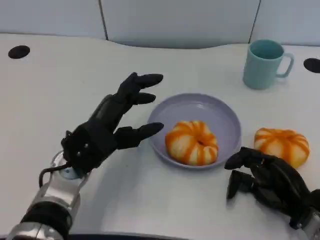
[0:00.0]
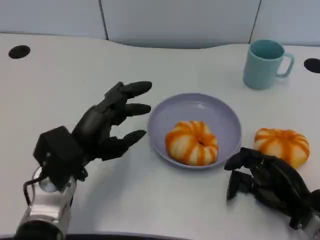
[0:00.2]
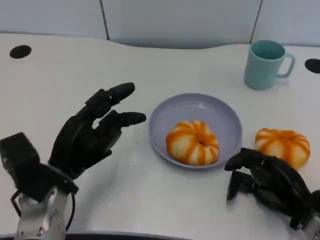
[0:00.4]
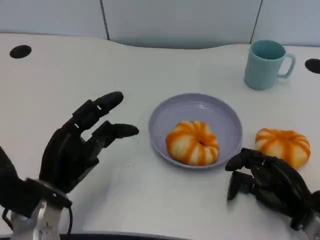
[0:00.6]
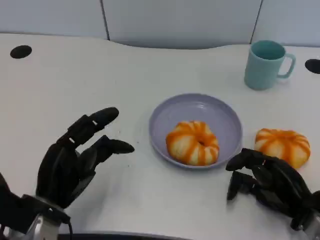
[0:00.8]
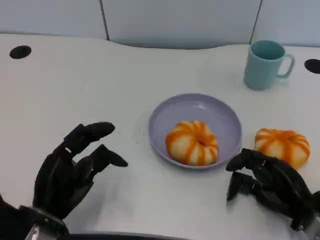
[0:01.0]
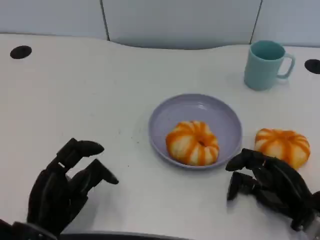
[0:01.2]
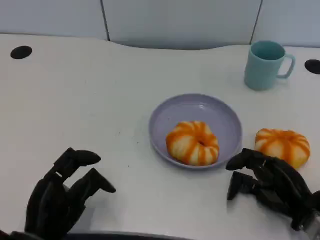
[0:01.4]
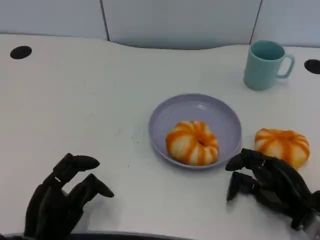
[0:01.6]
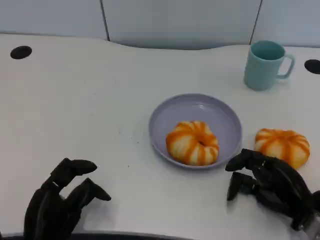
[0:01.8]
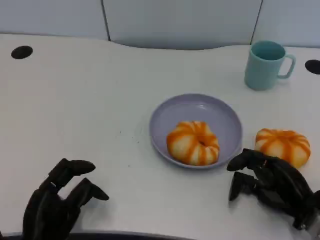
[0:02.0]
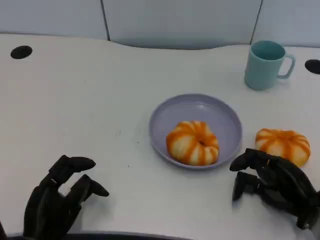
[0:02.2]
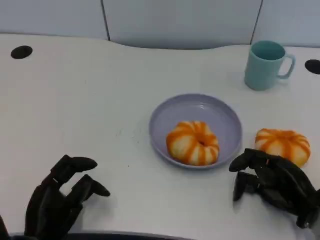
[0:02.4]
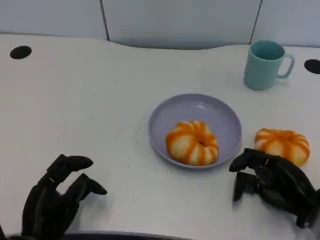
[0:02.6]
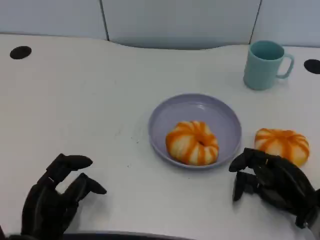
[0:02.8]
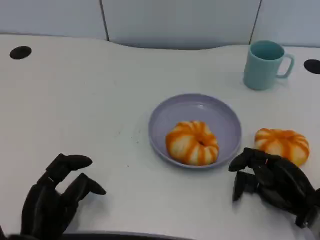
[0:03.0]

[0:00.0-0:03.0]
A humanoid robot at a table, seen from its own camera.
Task of the whole recording: Grasp the bread from the table and place it into the plate.
0:00.0 to 0:01.6: The left hand shifts some 15 cm backward, downward and to the left.
0:01.6 to 0:03.0: Neither hand changes place.

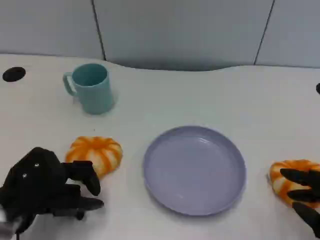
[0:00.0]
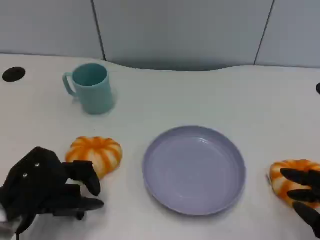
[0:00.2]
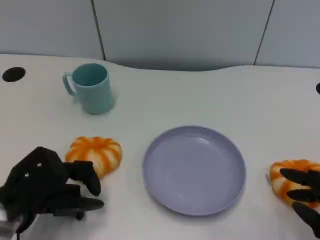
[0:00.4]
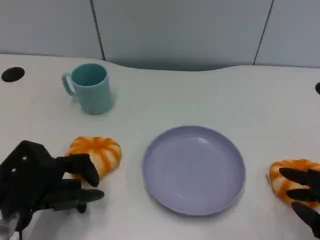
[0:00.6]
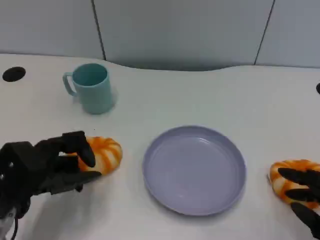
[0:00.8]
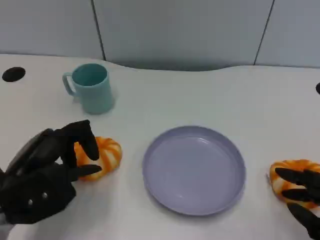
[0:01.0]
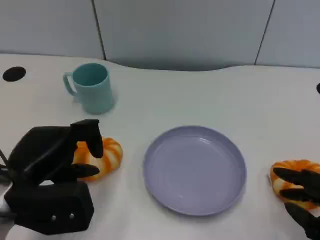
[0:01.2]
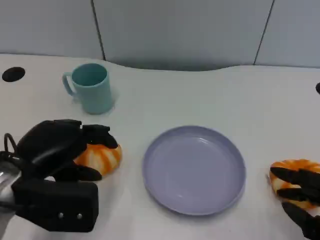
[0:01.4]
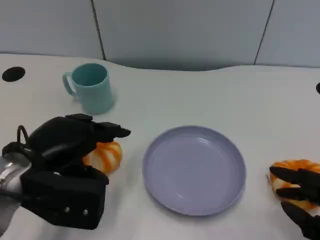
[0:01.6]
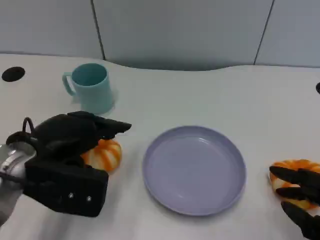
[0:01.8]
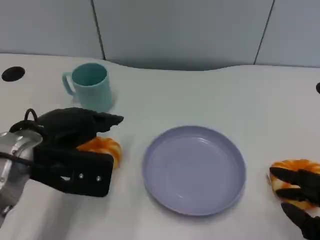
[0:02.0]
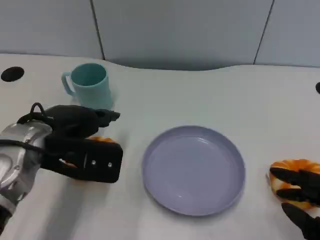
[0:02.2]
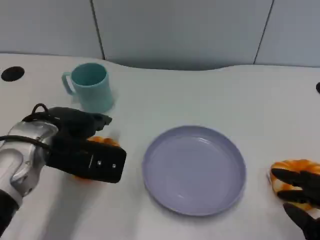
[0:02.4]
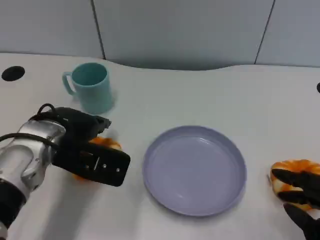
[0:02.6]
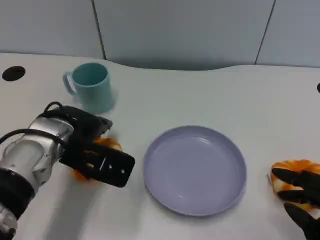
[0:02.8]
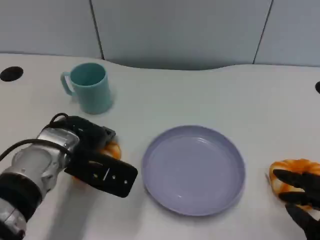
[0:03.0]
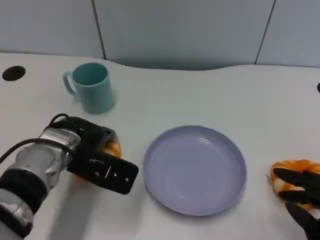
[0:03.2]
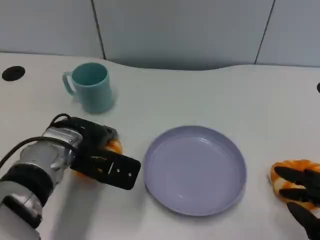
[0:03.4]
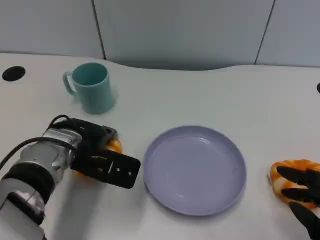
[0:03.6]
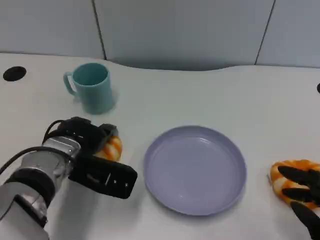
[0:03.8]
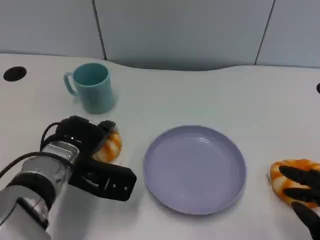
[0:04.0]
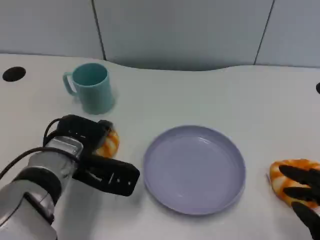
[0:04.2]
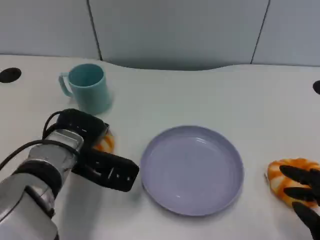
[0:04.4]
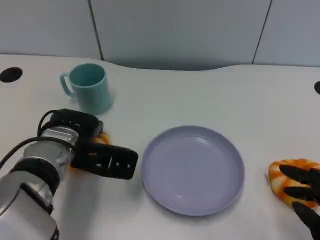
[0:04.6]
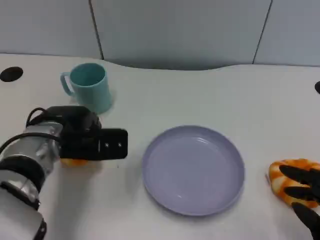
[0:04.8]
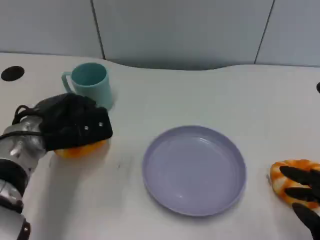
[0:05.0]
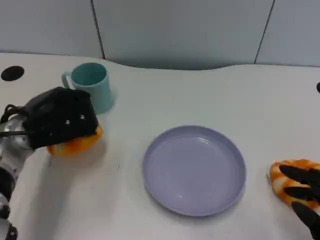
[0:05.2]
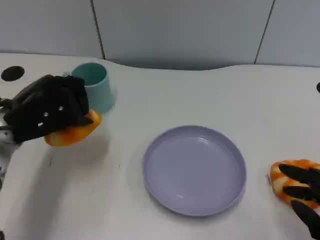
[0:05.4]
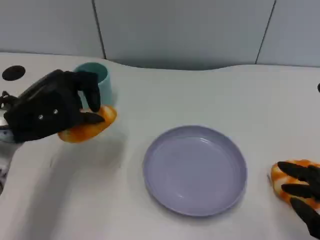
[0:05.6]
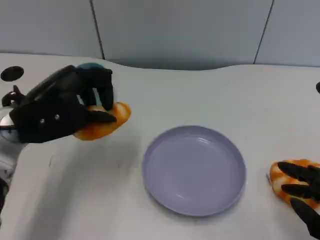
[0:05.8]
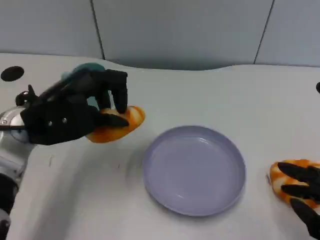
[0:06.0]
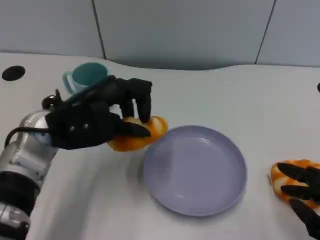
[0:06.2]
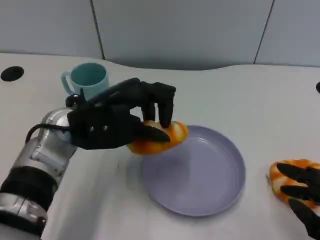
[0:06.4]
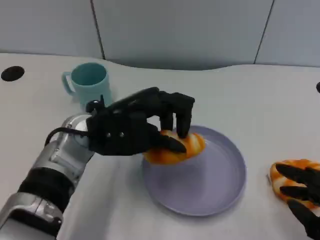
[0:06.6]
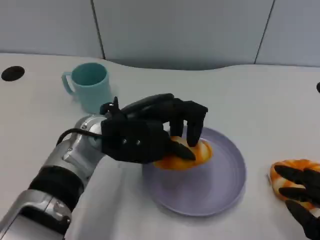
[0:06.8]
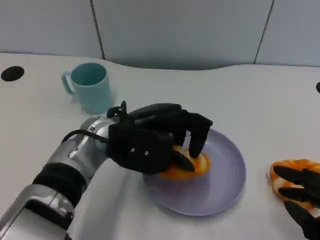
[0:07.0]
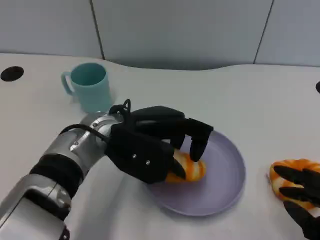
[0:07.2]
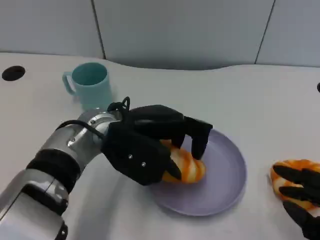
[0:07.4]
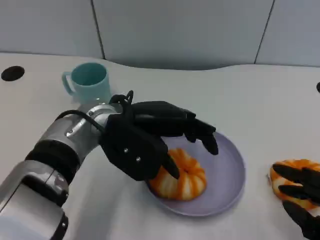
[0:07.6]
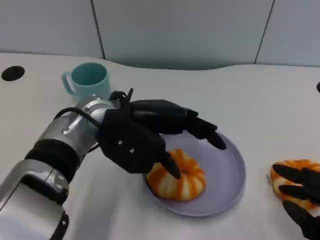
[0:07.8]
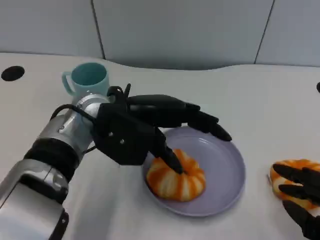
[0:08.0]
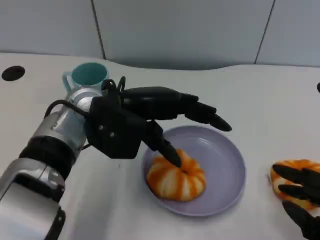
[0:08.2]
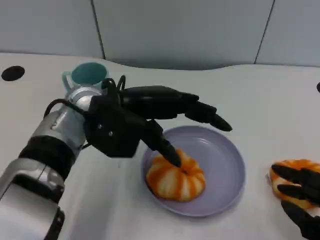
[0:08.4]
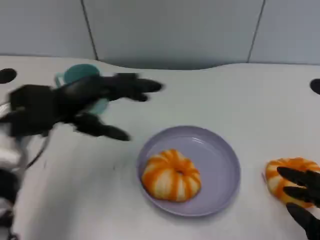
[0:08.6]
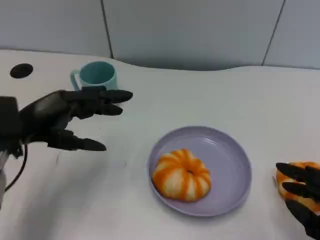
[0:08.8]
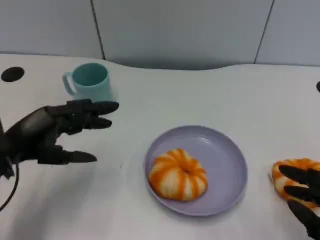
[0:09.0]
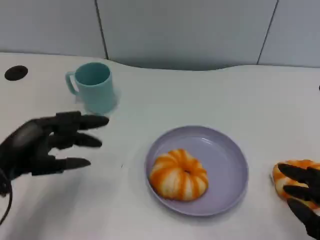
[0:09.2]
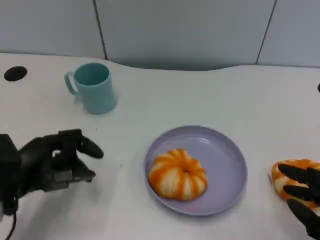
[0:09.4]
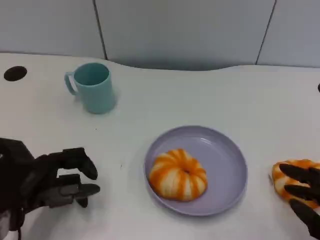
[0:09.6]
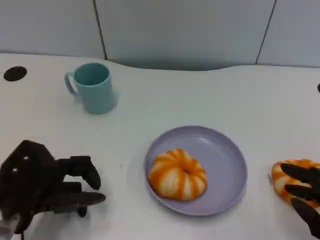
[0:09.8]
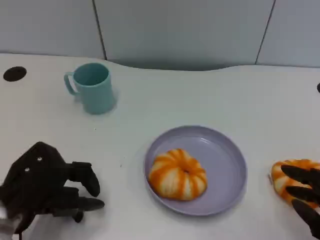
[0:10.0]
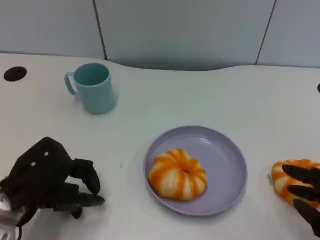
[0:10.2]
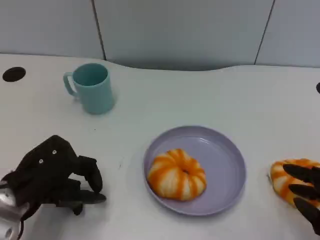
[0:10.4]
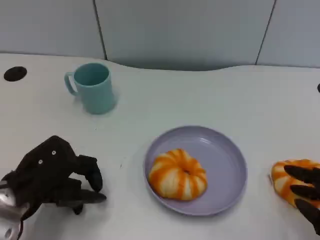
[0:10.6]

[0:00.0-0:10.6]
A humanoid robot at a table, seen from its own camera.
Task of the whole recording: Grasp the bread from the table and place it into the plate.
0:00.0 to 0:01.6: The left hand shifts roughly 10 cm upward.
0:01.6 to 0:03.0: The left hand moves forward, roughly 5 cm.
0:03.0 to 0:04.6: There are only small adjustments of the hands.
0:04.6 to 0:06.0: The left hand is displaced upward by approximately 5 cm.
0:06.0 to 0:07.6: The left hand travels to the right by approximately 10 cm.
0:07.6 to 0:09.0: The left hand is displaced to the left by approximately 15 cm.
0:09.0 to 0:10.6: The left hand moves roughly 5 cm.
